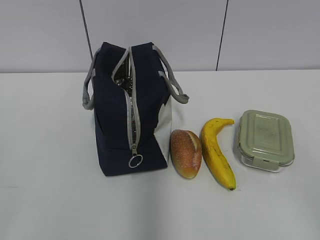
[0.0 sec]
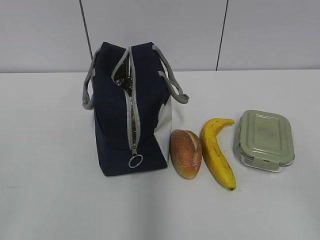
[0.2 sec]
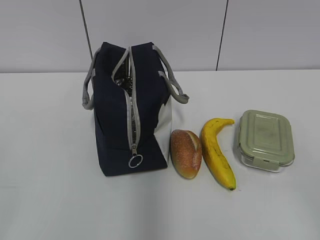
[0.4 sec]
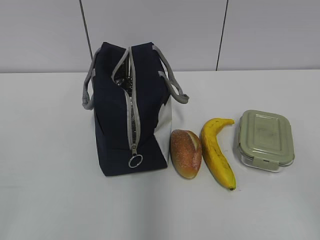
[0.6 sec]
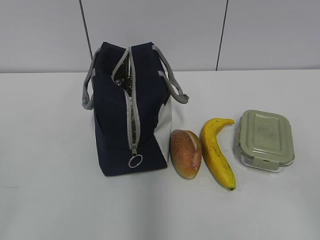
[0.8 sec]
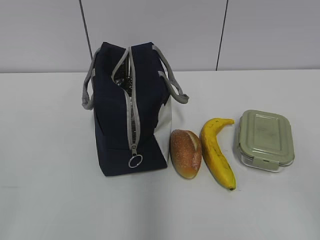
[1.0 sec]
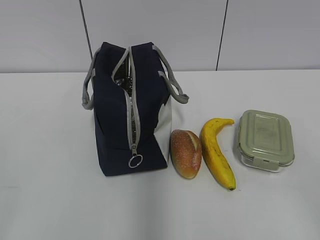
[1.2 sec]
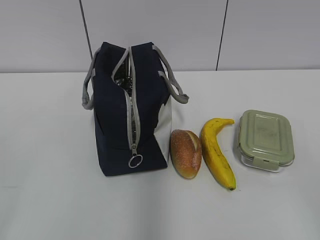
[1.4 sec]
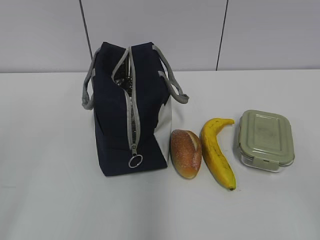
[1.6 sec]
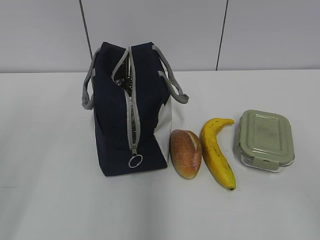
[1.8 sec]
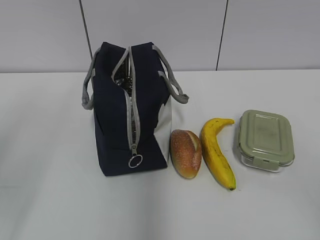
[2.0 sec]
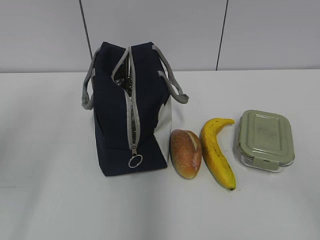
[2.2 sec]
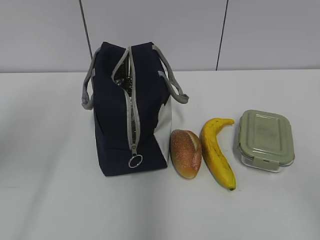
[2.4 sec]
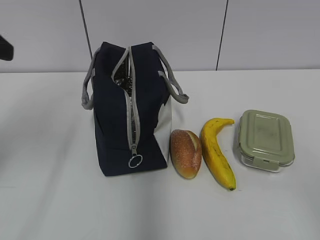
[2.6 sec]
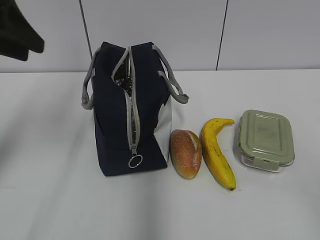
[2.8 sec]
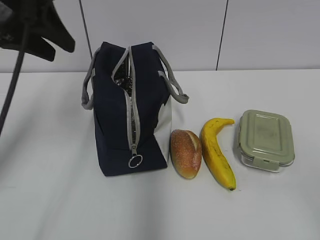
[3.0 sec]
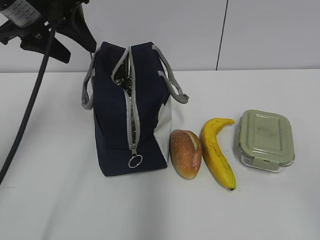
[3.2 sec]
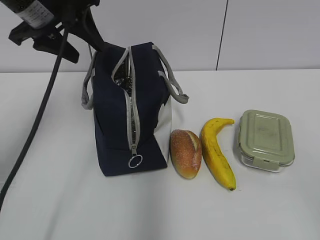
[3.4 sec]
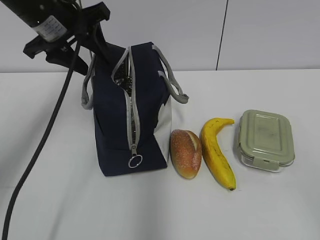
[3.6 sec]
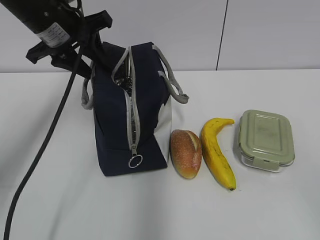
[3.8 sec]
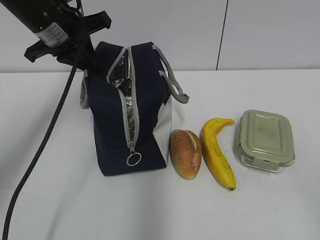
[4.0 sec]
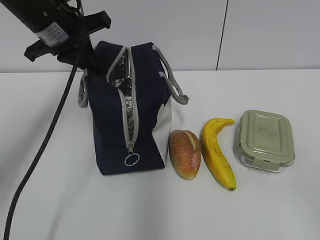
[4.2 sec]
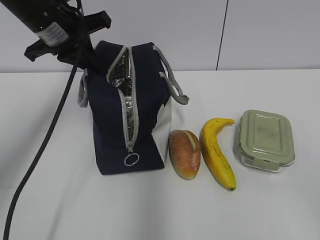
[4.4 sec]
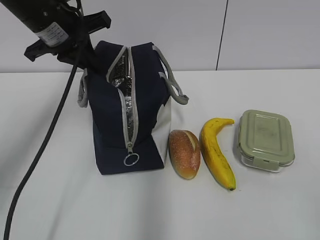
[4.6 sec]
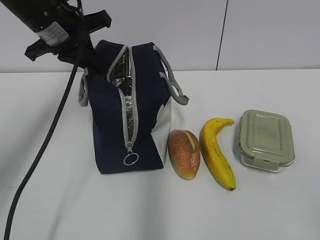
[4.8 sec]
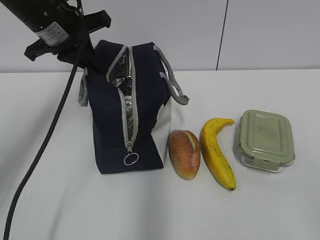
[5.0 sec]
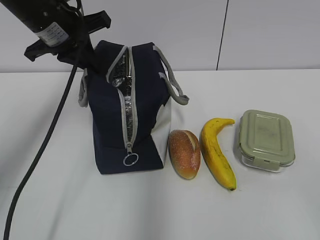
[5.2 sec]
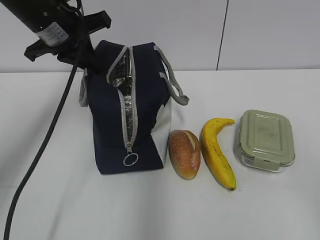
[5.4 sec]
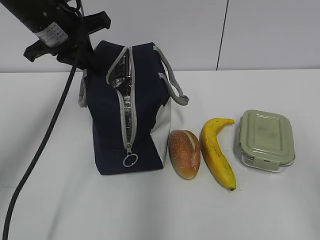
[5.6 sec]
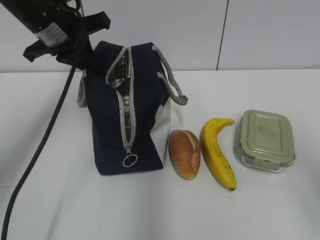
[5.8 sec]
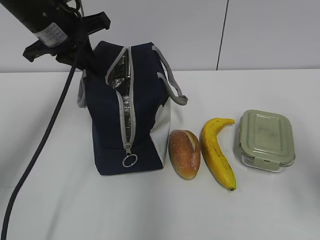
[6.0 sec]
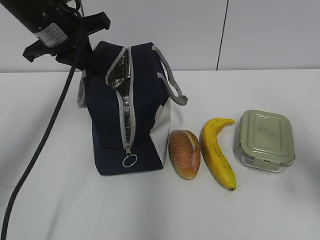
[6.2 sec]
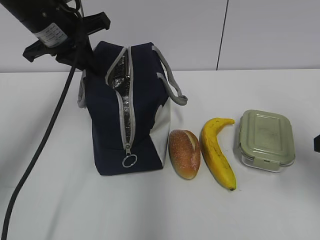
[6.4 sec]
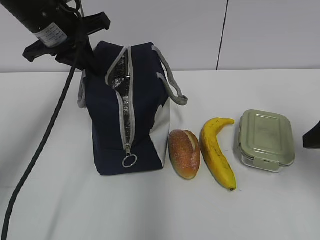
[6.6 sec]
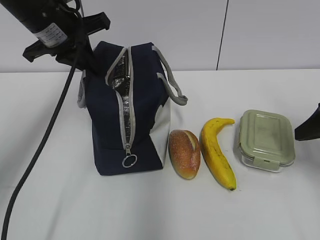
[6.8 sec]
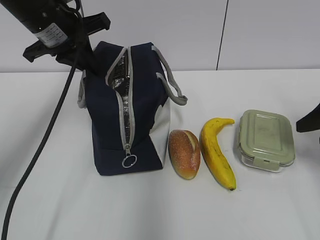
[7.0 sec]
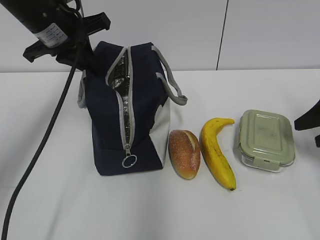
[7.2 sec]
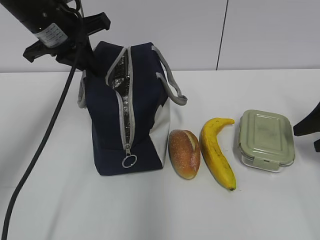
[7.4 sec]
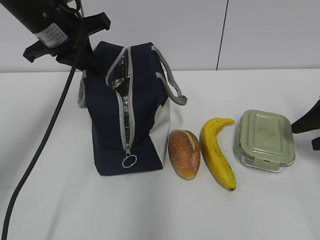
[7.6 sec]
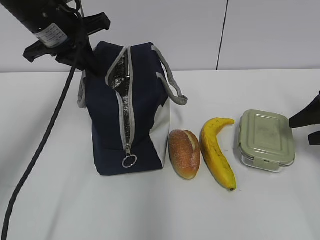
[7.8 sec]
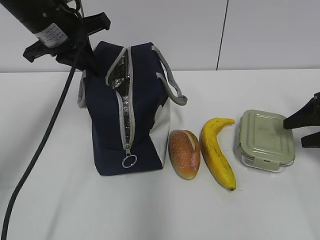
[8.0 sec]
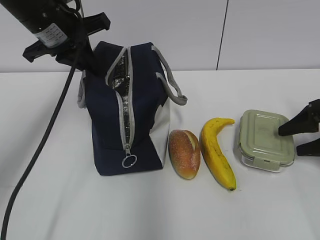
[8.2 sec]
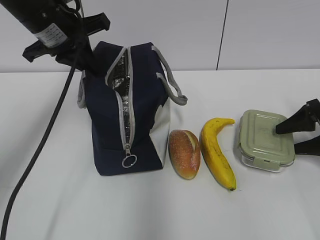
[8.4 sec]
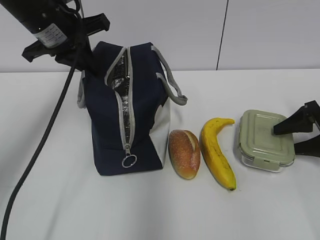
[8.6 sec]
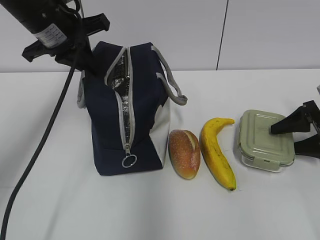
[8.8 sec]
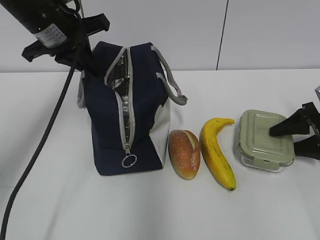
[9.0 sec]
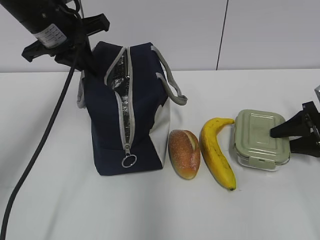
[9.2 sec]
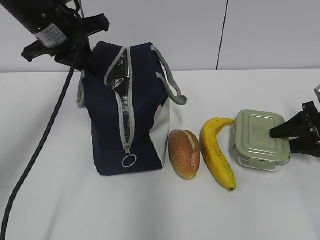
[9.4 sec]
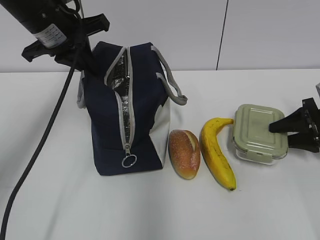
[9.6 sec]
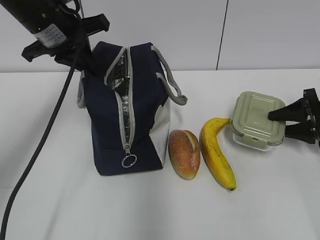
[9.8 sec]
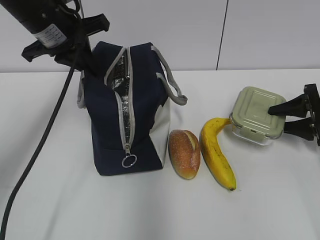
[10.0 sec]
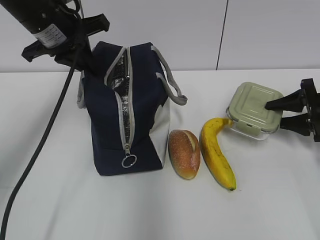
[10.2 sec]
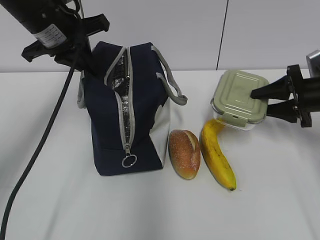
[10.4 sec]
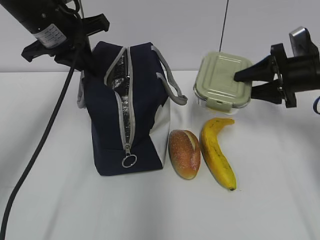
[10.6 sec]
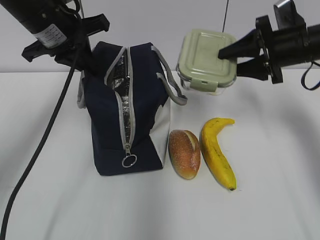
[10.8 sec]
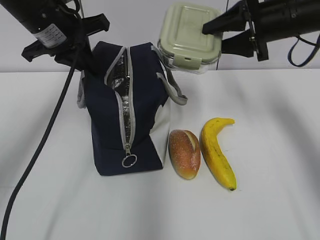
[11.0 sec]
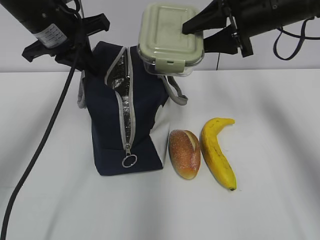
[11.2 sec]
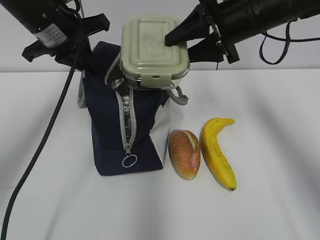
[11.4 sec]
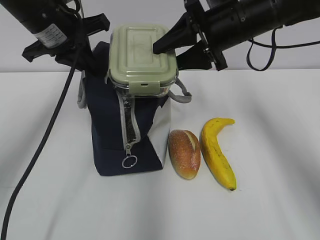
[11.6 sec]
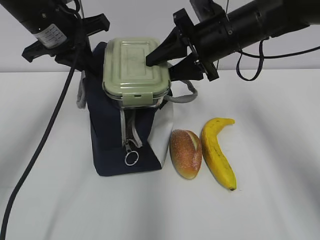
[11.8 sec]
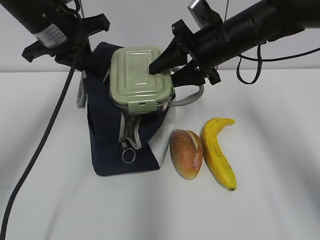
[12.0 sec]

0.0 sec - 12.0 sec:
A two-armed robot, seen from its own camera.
Step, 0.0 sec - 9.2 sec: Grab the lunch box with your right hand.
1.6 sec - 3.0 sec: The left gripper moves forward, about 25 cm.
3.0 sec - 4.4 sec: The left gripper shifts some 10 cm forward and downward, and closes.
4.4 sec - 6.0 sec: The right gripper is displaced forward by approximately 15 cm.
6.0 sec - 7.6 sec: The right gripper goes roughly 20 cm forward, downward and to the right.
7.6 sec - 9.0 sec: The right gripper heads downward, covering about 5 cm.
9.0 sec - 10.4 sec: The right gripper moves roughly 5 cm.
10.4 sec - 12.0 sec: The right gripper heads to the left and upward, covering roughly 25 cm.

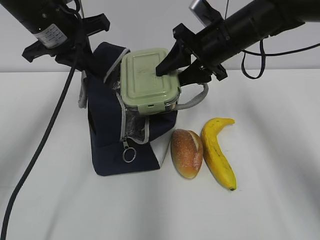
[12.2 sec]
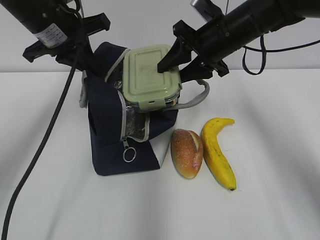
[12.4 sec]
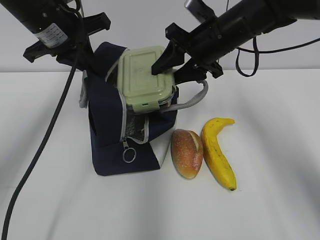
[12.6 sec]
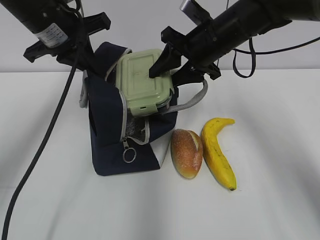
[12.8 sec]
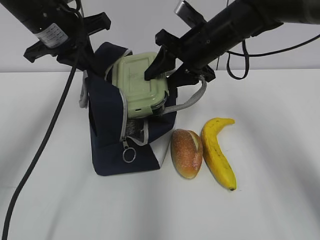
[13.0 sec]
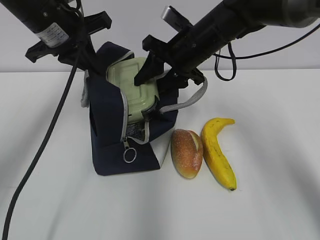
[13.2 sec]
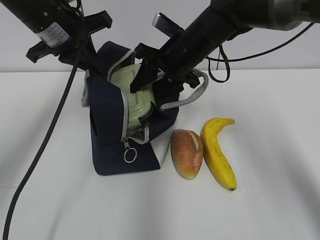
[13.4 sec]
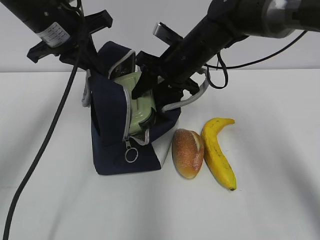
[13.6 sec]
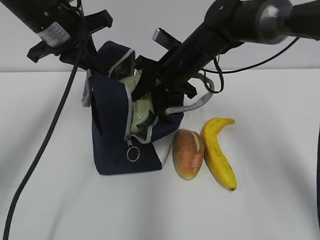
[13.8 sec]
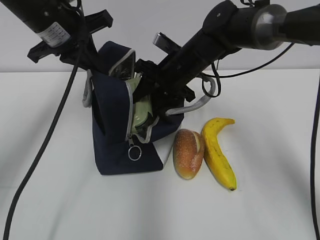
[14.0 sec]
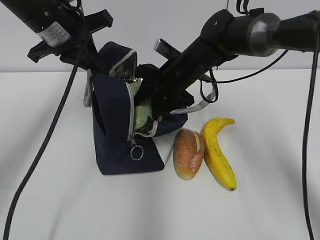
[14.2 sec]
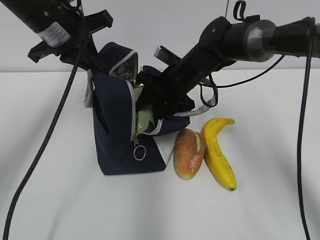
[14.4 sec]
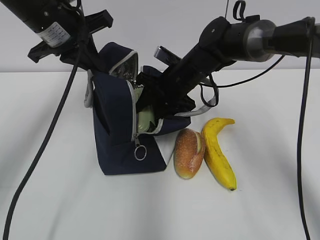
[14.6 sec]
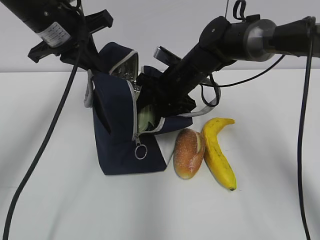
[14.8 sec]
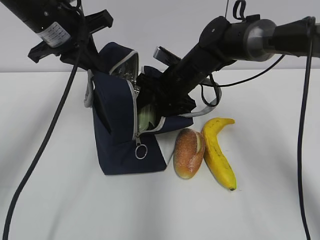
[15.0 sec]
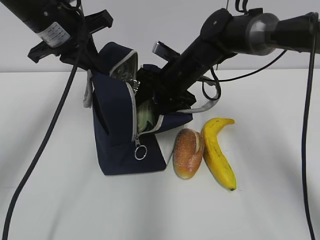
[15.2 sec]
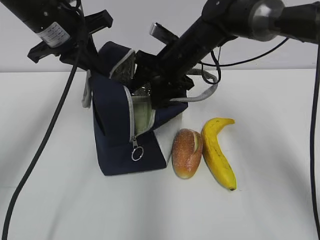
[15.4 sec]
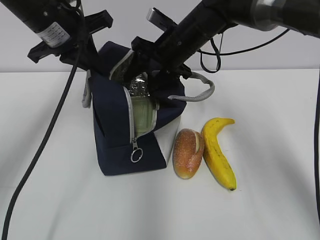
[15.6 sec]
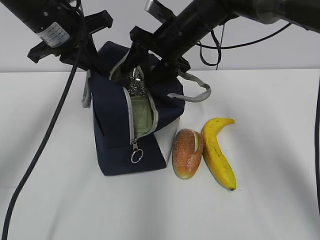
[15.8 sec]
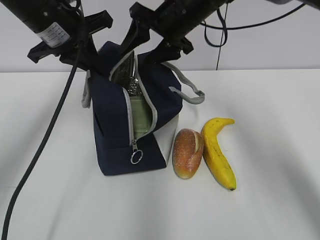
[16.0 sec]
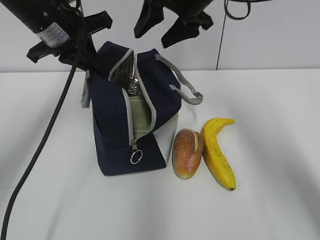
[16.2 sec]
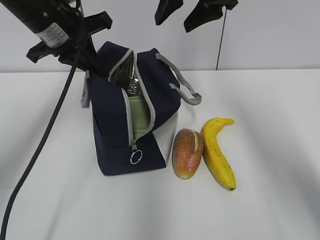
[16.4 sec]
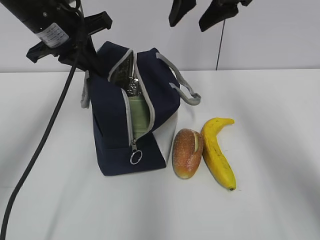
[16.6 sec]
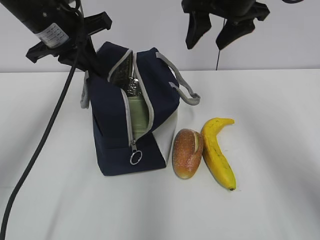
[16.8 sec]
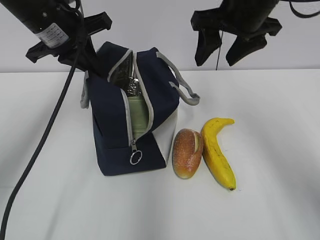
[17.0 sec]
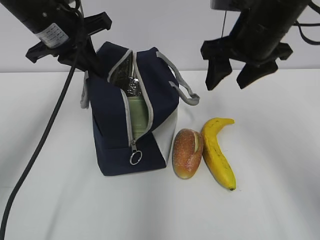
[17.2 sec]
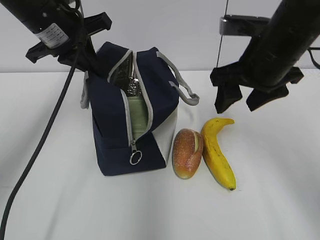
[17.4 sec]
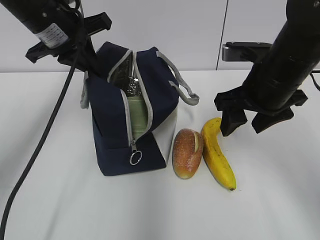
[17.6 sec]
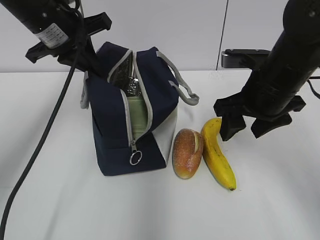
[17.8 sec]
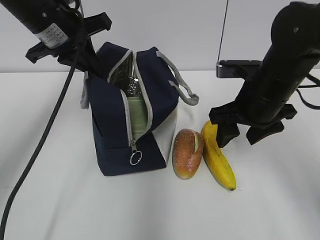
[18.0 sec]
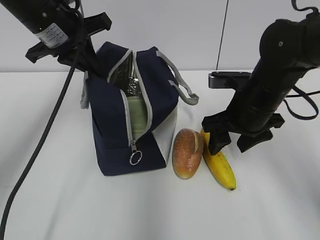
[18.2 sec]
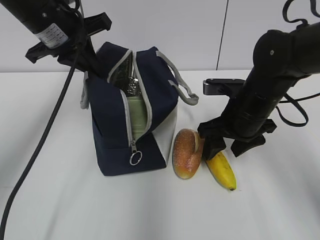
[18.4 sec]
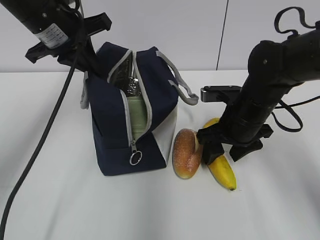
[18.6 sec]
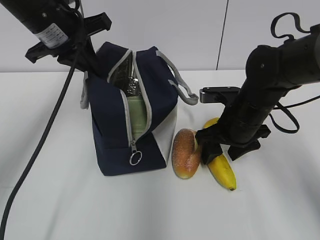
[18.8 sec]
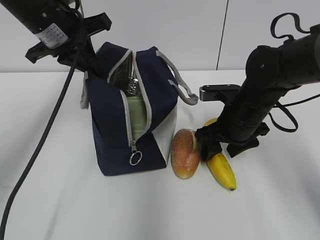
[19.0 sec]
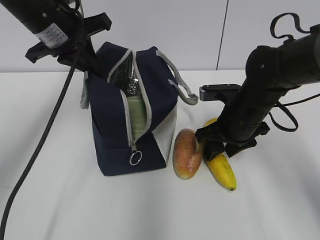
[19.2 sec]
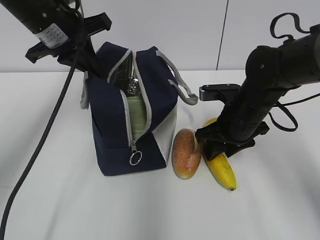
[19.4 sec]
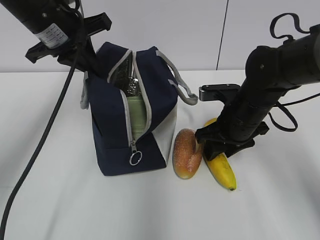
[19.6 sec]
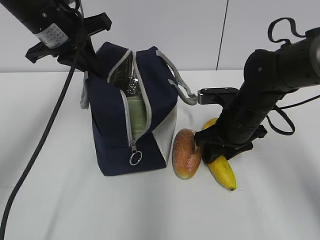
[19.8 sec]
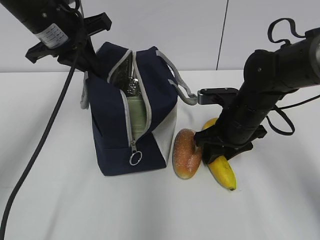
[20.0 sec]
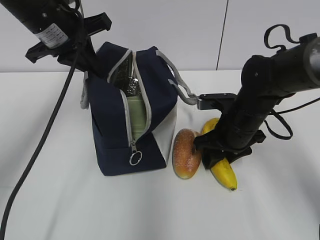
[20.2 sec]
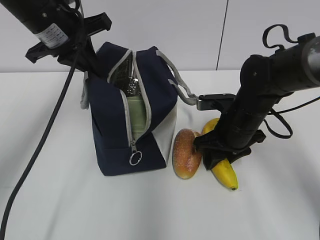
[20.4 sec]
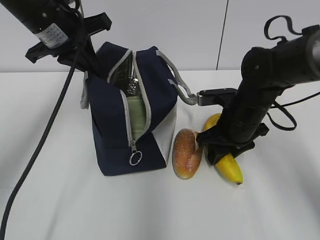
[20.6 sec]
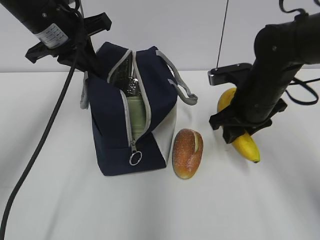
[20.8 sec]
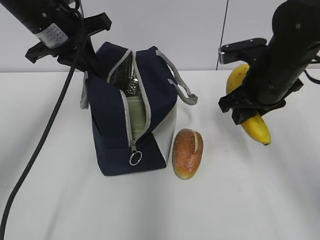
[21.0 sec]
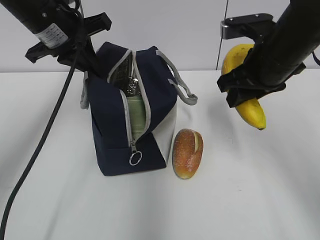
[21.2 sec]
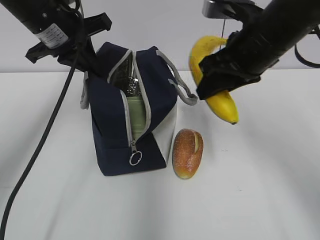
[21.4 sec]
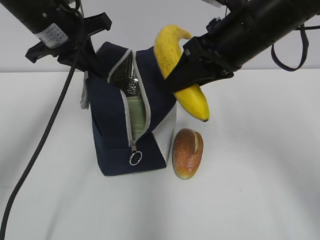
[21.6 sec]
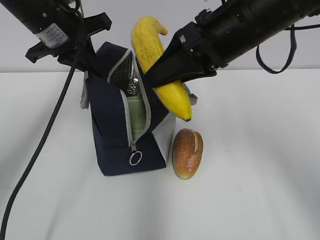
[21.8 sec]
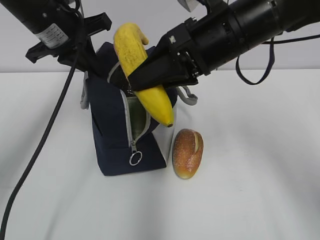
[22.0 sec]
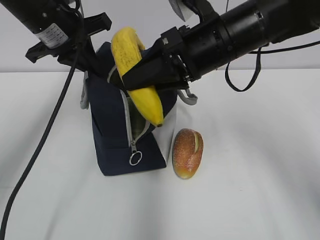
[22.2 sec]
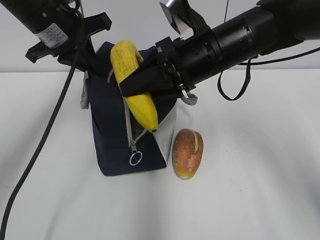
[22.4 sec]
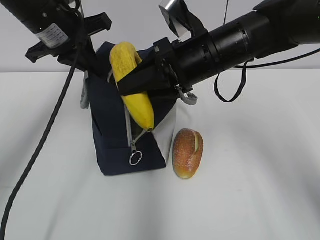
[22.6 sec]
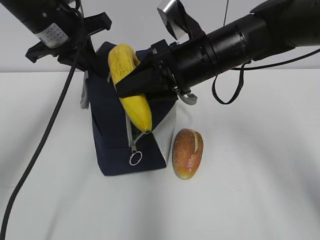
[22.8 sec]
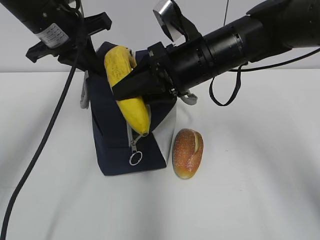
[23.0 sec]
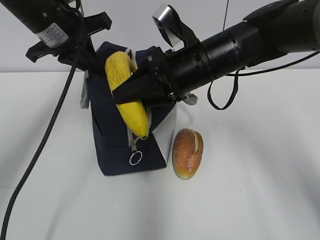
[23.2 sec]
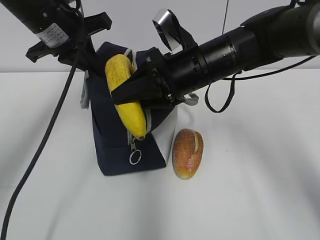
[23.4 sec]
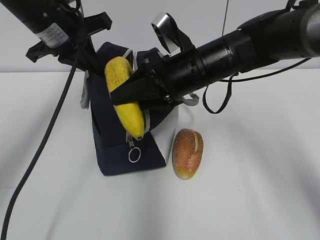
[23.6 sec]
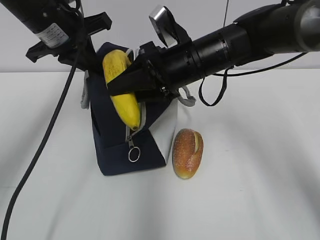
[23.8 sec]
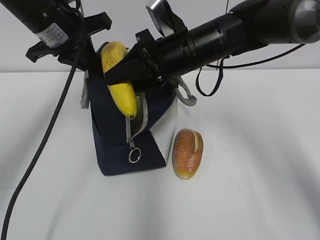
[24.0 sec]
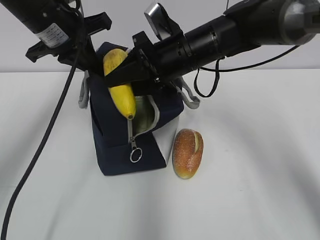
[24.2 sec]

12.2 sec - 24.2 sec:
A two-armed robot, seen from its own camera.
Step, 12.2 sec - 15.4 sec: Place it into the bag with your right hand.
Step, 15.6 sec - 20.2 sec: Grab the banana with your right hand.
12.2 sec - 13.8 sec: The right gripper moves to the left, roughly 5 cm.
13.8 sec - 15.2 sec: There are only small adjustments of the grippers.
15.2 sec - 16.6 sec: The right gripper moves upward, roughly 20 cm.
16.6 sec - 18.2 sec: The right gripper is displaced downward and backward by some 20 cm.
18.2 sec - 19.8 sec: The right gripper ends up about 5 cm from where it was.
19.8 sec - 21.2 sec: The right gripper is displaced upward by about 10 cm.
21.2 sec - 22.6 sec: The right gripper travels to the left by roughly 10 cm.
22.6 sec - 24.2 sec: The right gripper shifts by roughly 5 cm.
